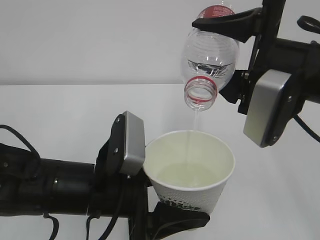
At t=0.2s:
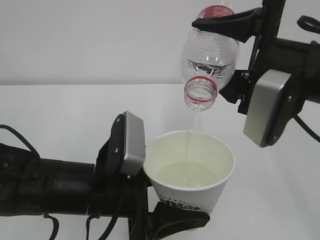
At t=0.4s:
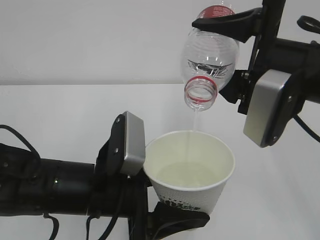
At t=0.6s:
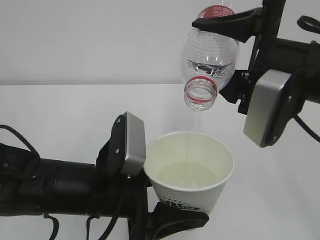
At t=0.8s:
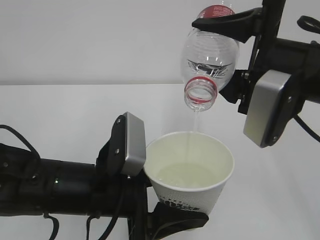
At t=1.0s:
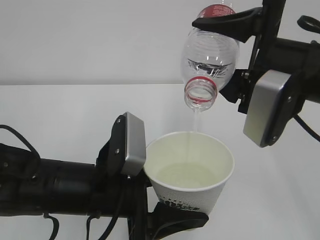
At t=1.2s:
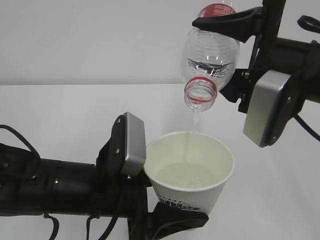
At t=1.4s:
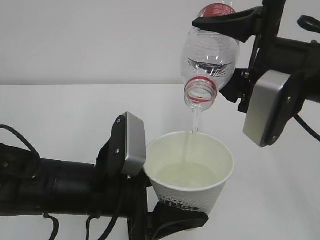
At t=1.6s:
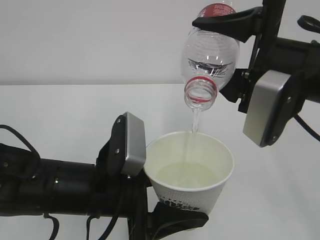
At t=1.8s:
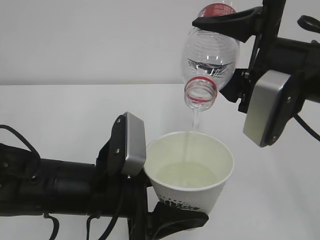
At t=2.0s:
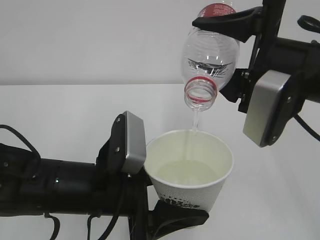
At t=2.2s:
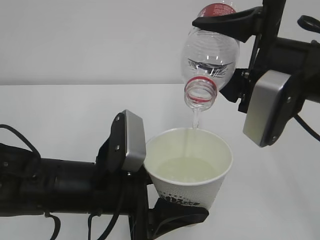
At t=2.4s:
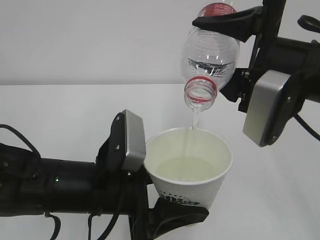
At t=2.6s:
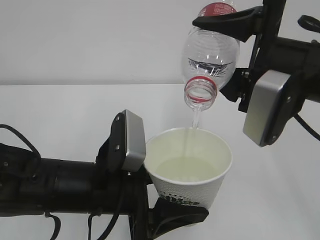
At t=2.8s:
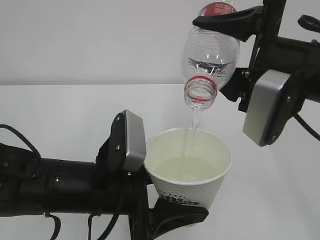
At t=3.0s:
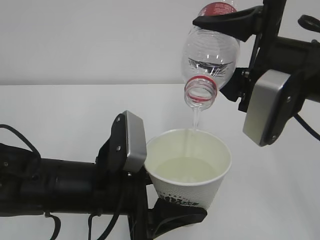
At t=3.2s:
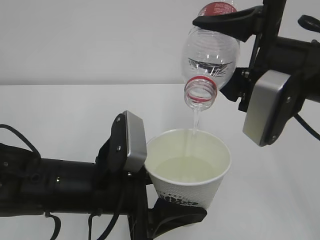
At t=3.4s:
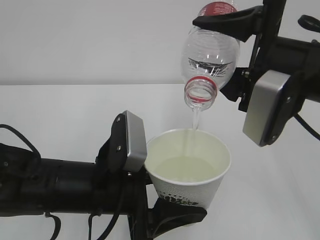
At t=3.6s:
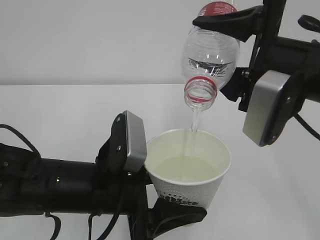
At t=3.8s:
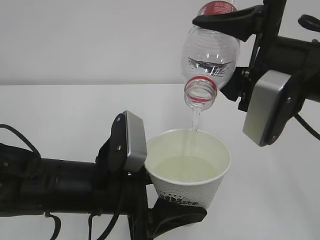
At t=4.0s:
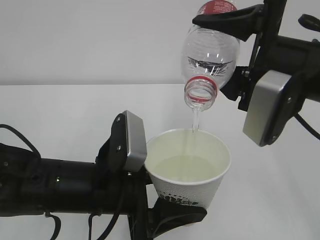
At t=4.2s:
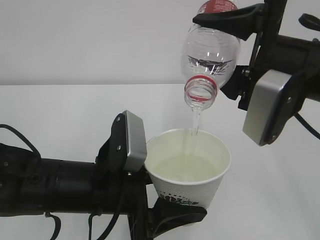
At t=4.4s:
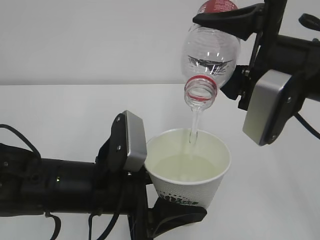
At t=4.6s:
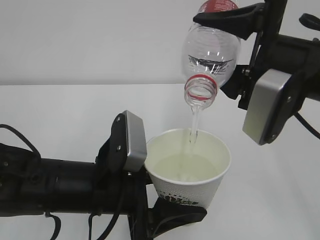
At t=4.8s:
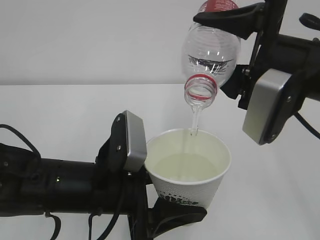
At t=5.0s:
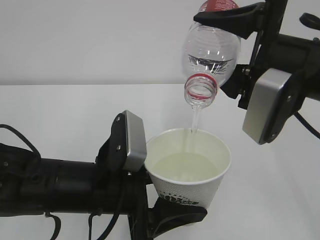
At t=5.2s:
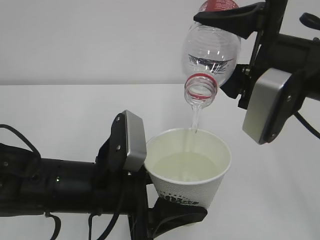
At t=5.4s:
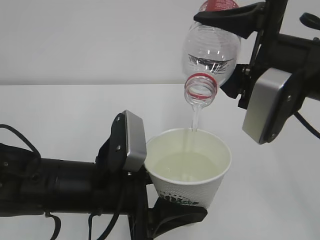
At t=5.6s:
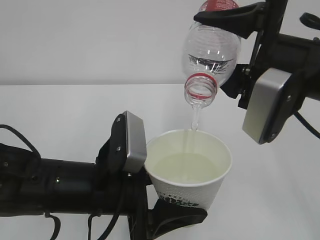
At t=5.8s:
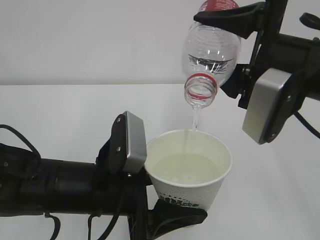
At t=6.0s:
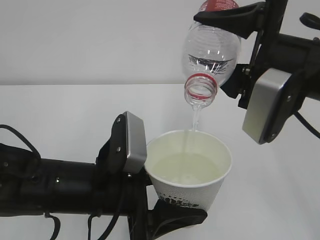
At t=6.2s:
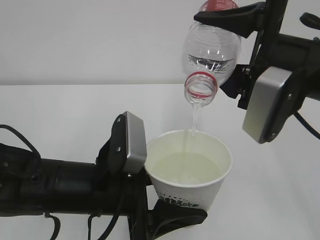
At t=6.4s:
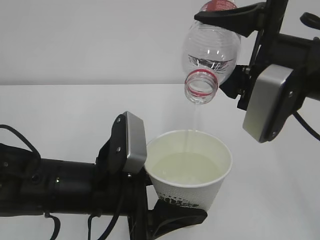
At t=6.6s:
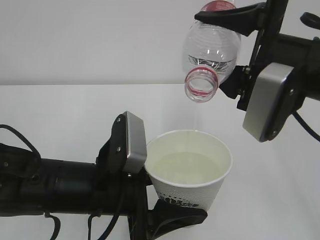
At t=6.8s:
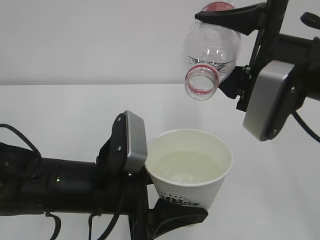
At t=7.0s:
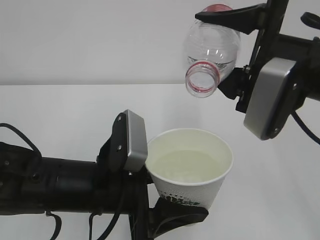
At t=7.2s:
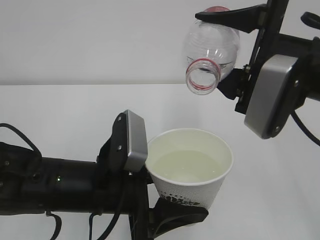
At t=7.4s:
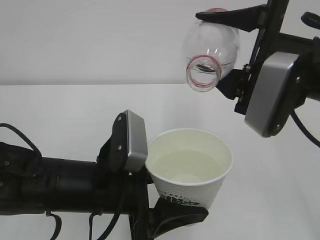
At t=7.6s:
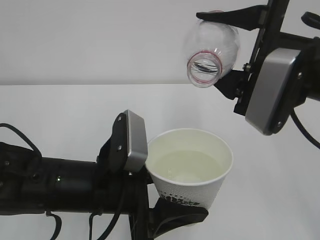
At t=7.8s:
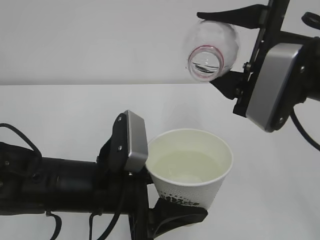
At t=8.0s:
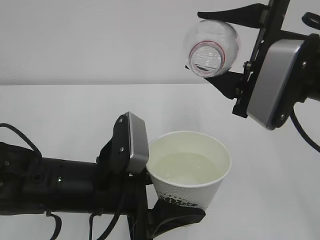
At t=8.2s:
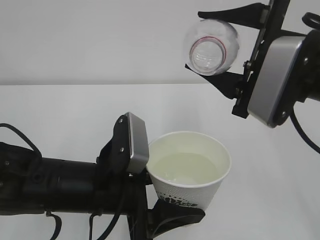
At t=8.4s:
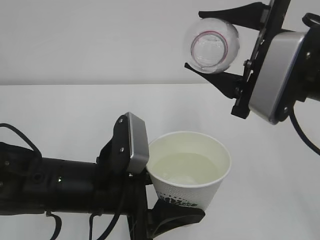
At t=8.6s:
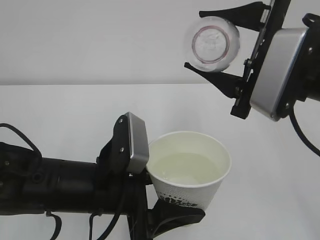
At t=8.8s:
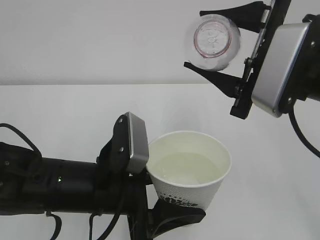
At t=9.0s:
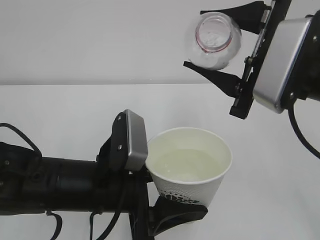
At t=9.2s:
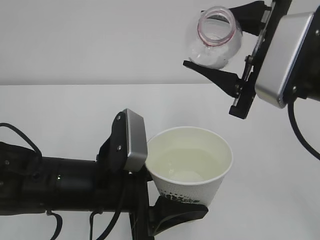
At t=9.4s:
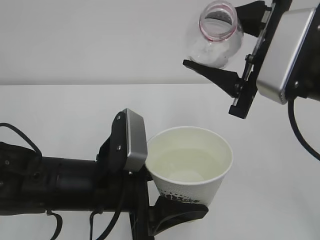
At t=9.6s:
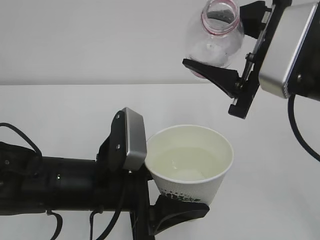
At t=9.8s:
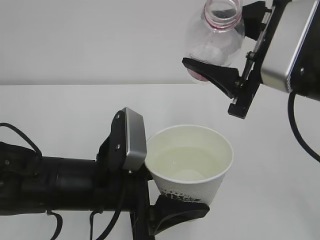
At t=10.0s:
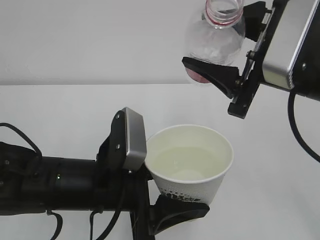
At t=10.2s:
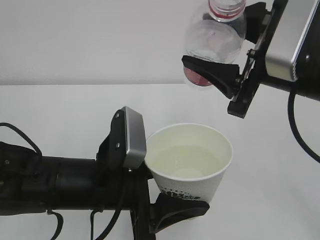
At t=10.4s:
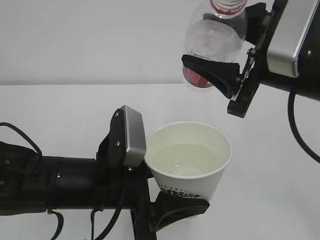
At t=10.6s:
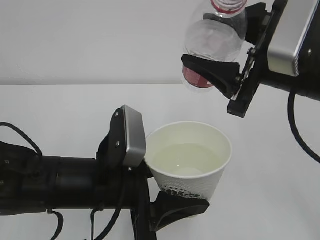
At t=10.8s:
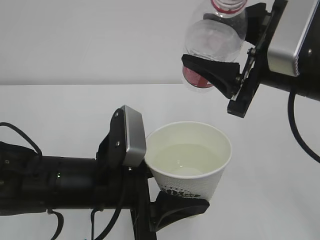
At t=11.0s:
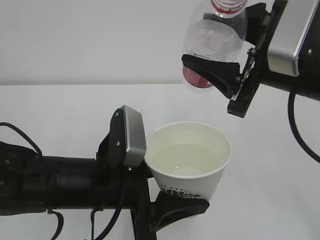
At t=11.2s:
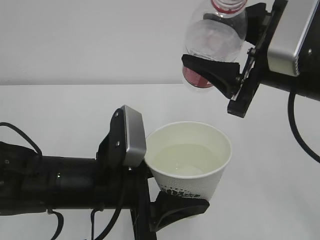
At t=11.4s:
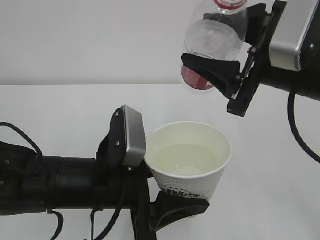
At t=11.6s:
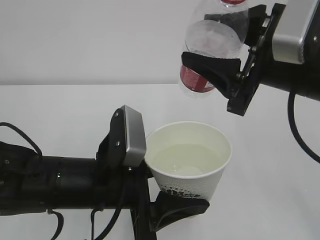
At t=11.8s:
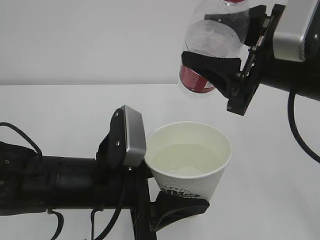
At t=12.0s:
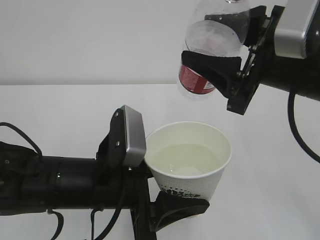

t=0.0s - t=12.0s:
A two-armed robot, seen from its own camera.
t=0.0s - t=6.0s: Neither gripper changes place.
t=6.0s - t=7.6s: The grippers move only a little.
t=10.4s - t=12.0s: There are only small adjustments of the grippers.

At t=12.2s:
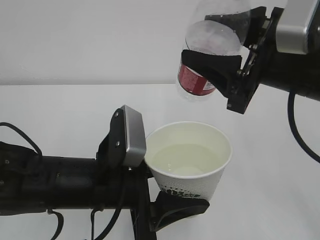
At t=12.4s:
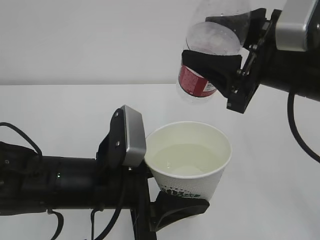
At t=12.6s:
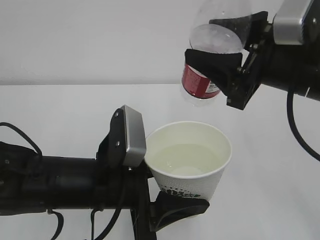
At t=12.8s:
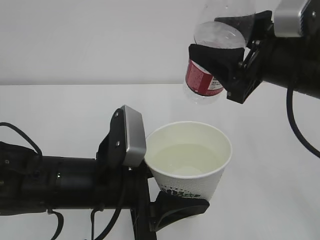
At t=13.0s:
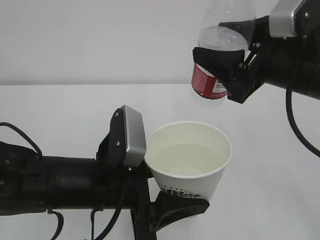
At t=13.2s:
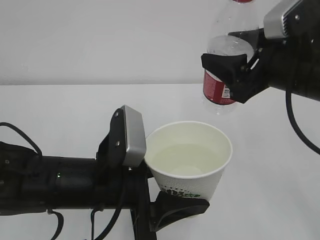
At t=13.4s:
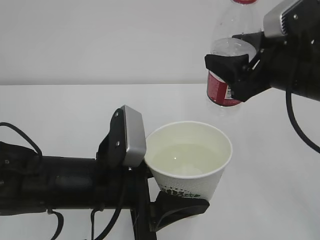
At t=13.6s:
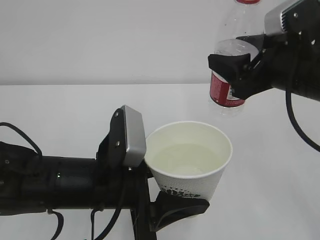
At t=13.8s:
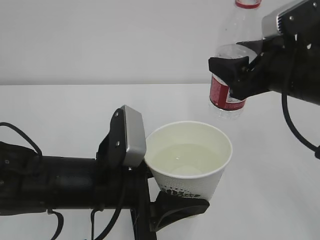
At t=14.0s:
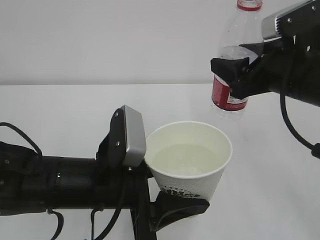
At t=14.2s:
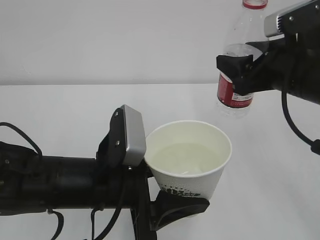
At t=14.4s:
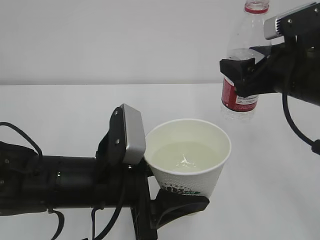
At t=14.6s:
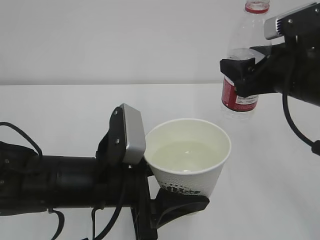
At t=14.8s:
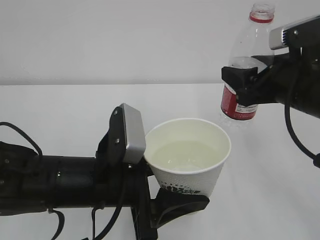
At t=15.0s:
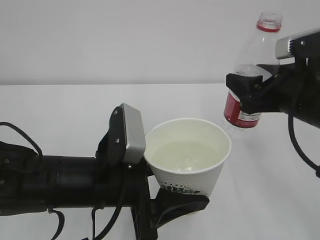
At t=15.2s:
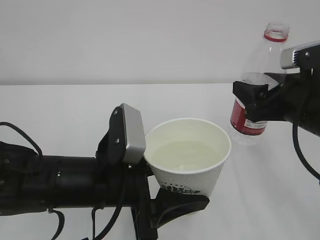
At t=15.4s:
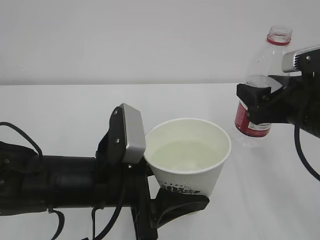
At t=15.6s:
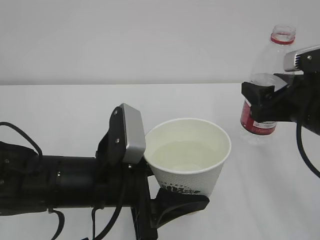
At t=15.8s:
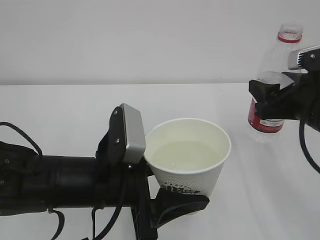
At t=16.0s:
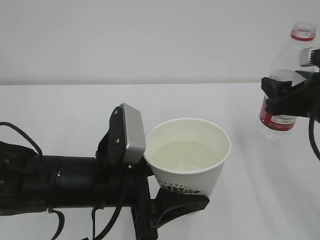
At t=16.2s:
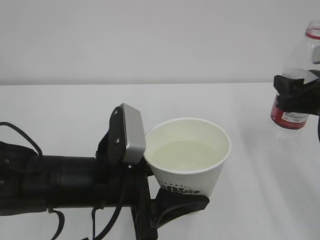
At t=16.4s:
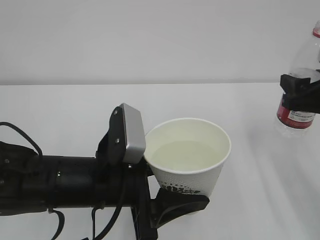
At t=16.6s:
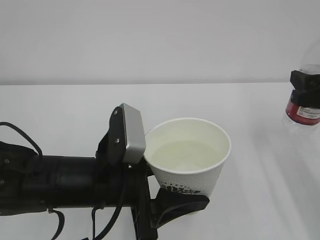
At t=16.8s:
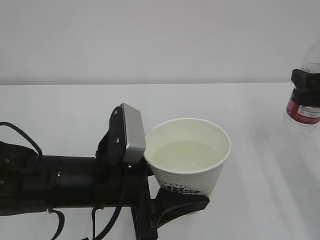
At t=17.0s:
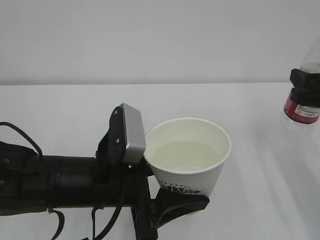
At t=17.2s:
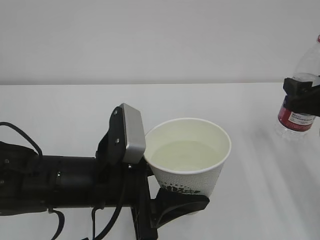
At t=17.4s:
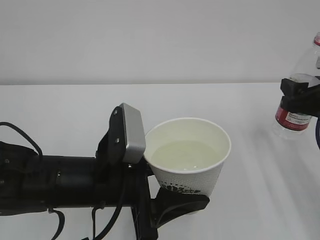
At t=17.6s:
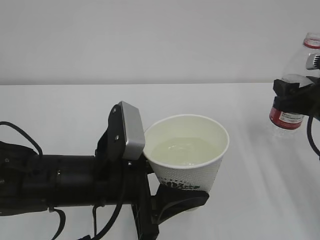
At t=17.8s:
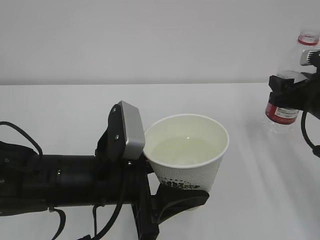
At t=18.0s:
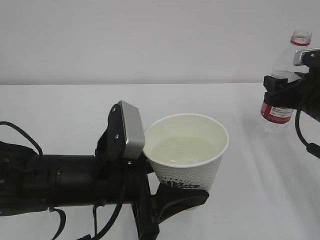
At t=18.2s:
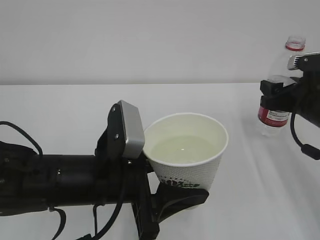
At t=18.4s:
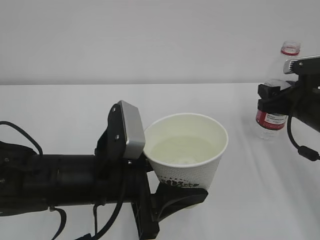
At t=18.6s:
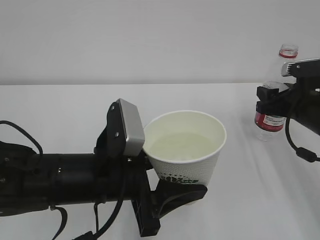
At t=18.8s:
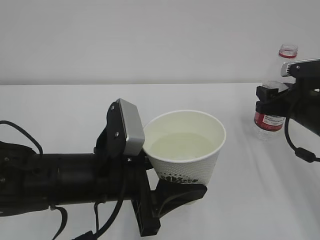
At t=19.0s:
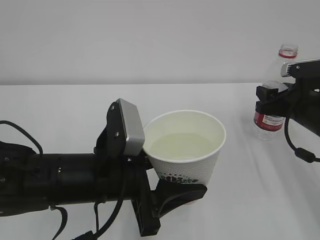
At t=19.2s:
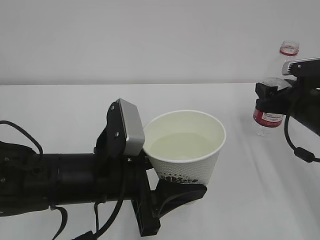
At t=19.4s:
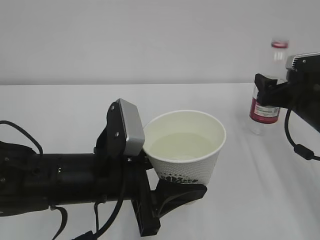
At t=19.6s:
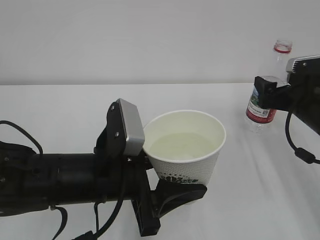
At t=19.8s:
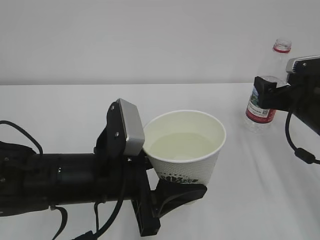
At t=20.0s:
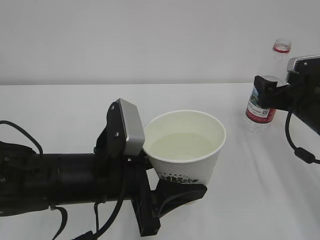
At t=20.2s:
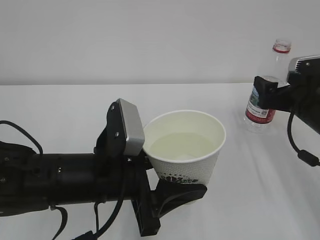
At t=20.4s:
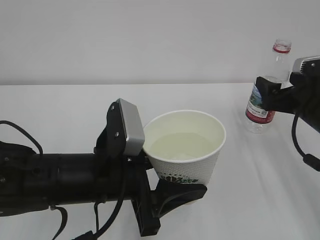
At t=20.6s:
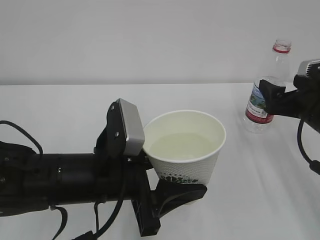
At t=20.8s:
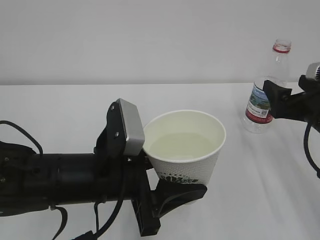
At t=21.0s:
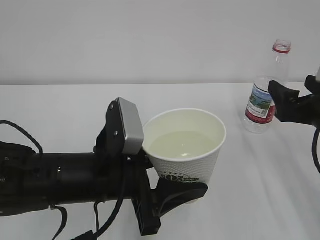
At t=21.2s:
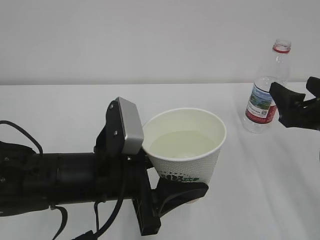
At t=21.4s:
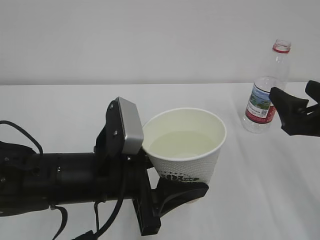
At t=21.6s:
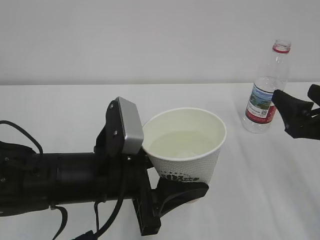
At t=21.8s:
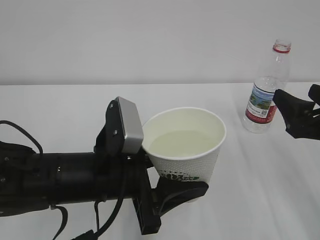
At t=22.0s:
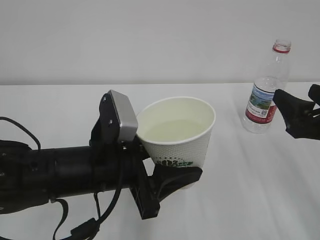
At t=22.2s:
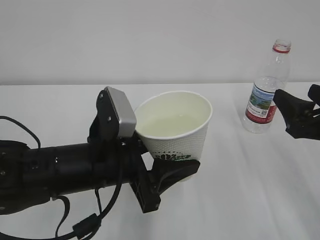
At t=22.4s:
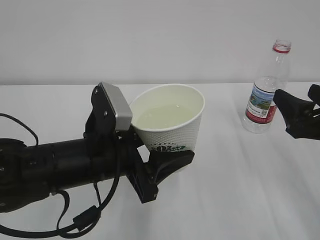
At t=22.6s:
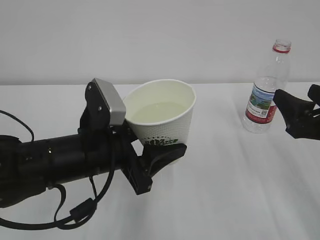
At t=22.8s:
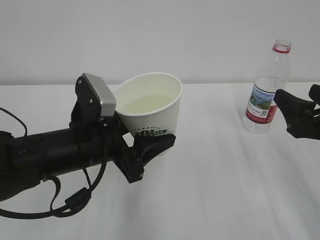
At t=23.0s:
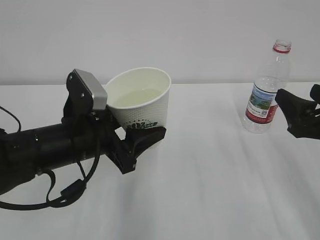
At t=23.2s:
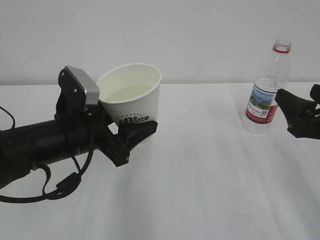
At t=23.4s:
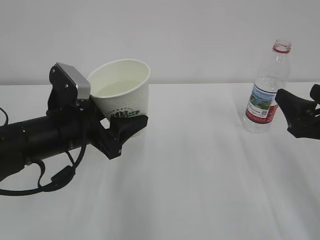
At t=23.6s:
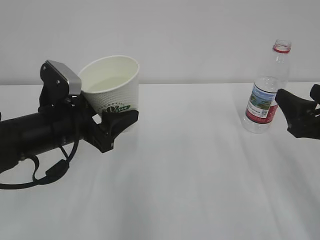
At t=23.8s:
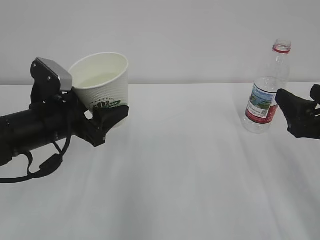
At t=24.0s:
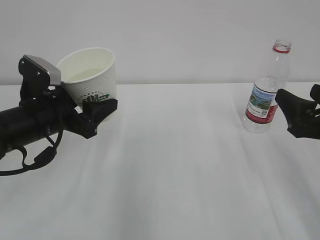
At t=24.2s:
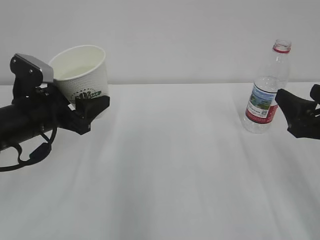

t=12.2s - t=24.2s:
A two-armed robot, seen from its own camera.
t=13.8s - t=15.2s: The right gripper changes place by some 5 cm.
t=15.2s - t=16.6s: The right gripper is displaced to the right by some 5 cm.
t=16.6s - t=18.2s: The right gripper goes about 10 cm forward and downward.
t=18.2s - t=19.8s: The right gripper opens.
t=19.8s - t=21.2s: The right gripper is displaced backward by approximately 10 cm.
t=21.2s - t=22.6s: The right gripper closes its fingers.
t=22.6s - t=24.2s: The left gripper shifts approximately 15 cm to the left and forward.
